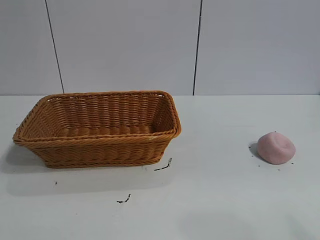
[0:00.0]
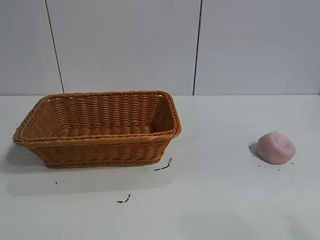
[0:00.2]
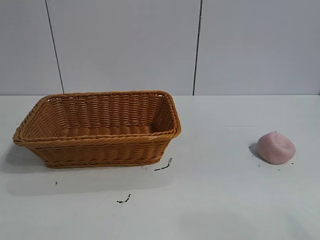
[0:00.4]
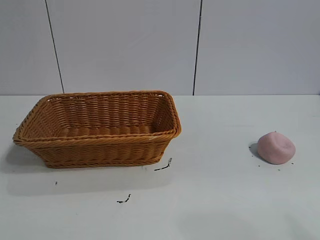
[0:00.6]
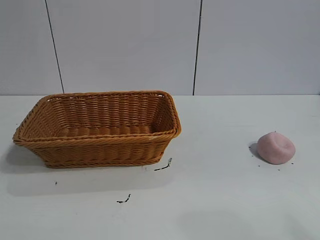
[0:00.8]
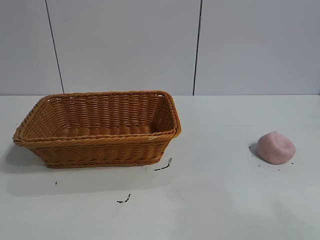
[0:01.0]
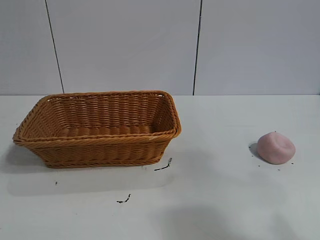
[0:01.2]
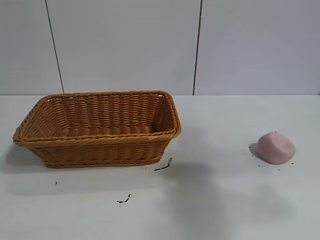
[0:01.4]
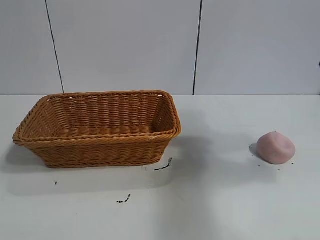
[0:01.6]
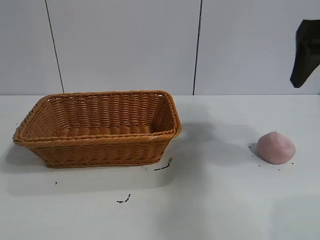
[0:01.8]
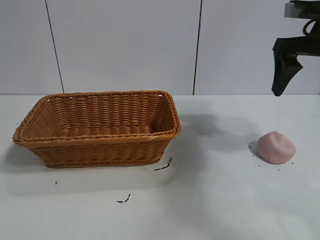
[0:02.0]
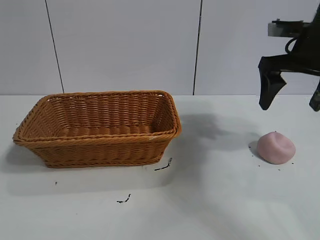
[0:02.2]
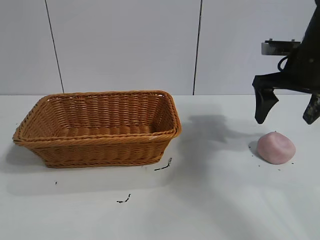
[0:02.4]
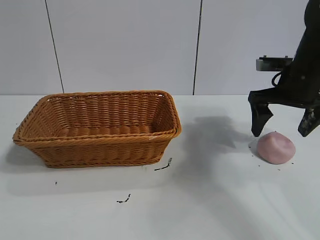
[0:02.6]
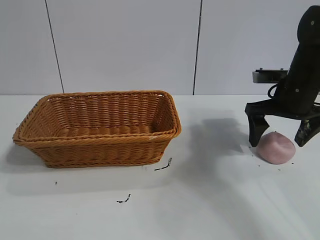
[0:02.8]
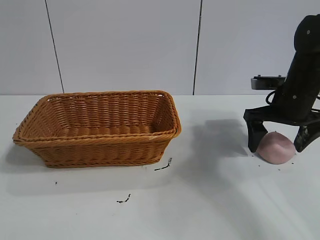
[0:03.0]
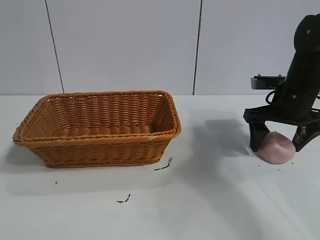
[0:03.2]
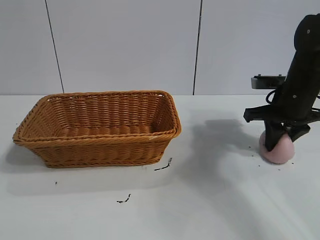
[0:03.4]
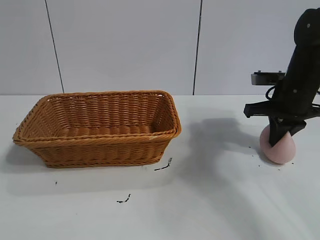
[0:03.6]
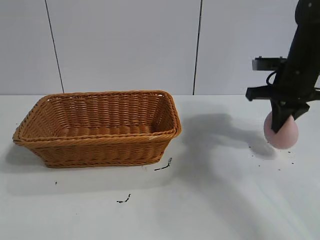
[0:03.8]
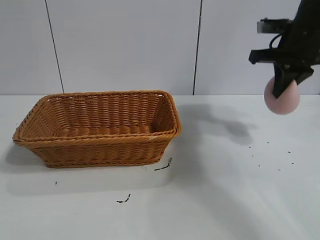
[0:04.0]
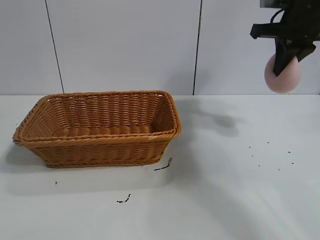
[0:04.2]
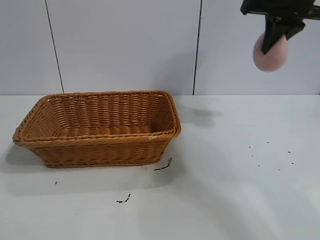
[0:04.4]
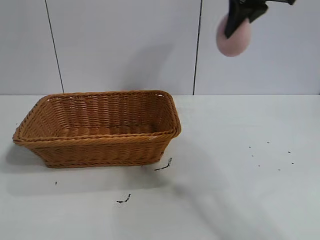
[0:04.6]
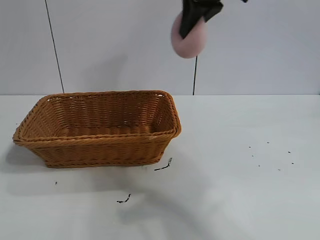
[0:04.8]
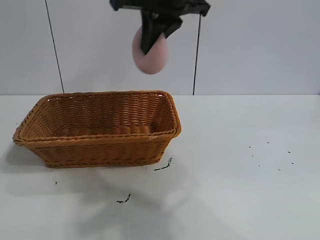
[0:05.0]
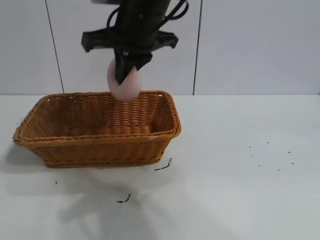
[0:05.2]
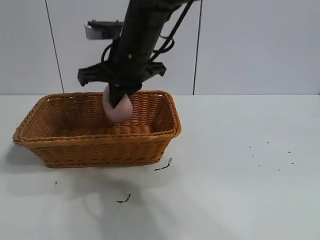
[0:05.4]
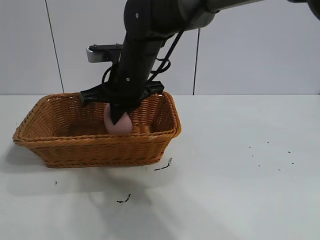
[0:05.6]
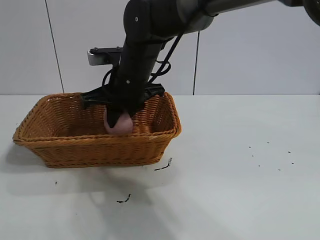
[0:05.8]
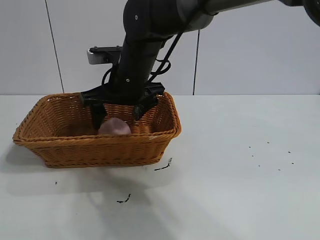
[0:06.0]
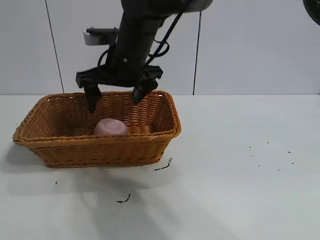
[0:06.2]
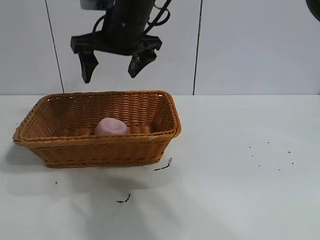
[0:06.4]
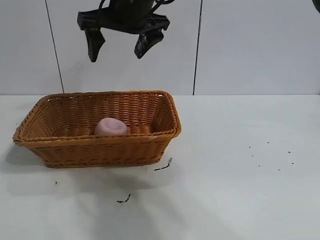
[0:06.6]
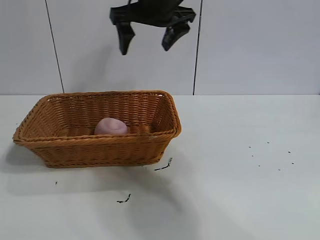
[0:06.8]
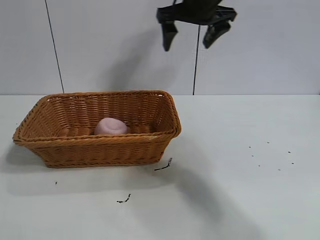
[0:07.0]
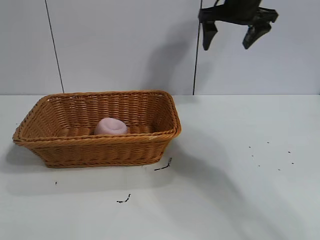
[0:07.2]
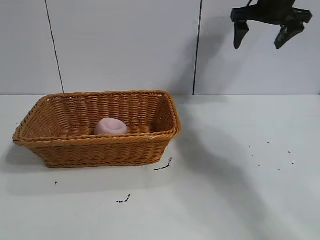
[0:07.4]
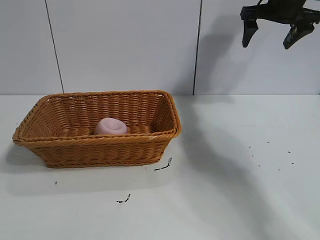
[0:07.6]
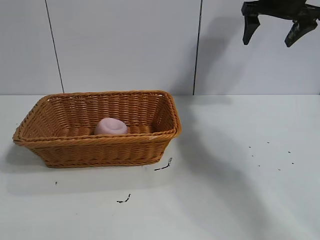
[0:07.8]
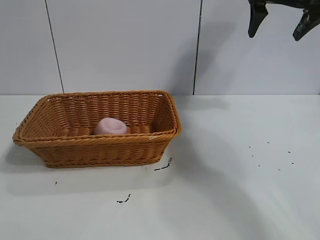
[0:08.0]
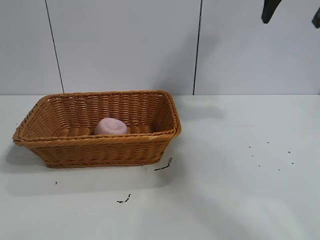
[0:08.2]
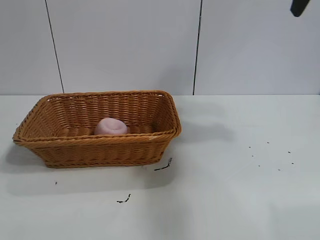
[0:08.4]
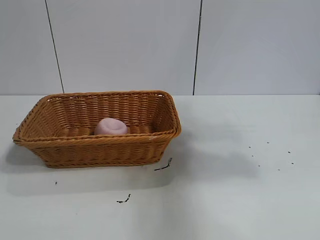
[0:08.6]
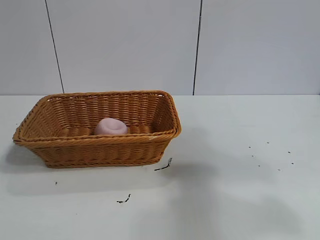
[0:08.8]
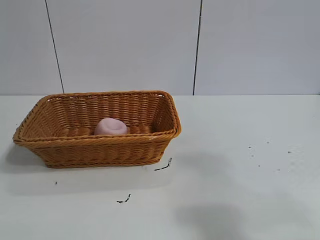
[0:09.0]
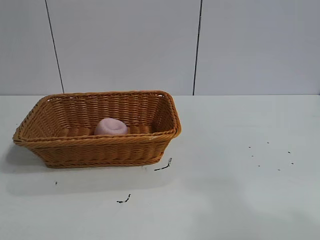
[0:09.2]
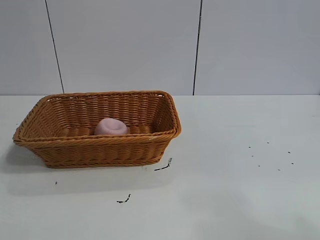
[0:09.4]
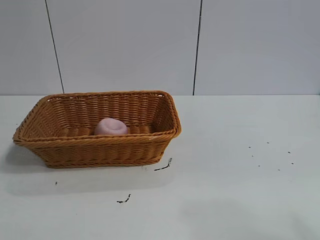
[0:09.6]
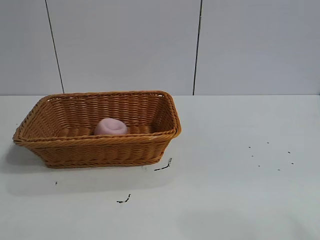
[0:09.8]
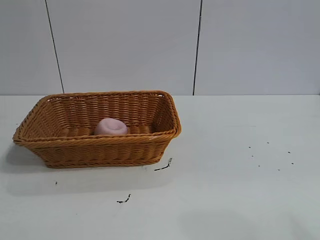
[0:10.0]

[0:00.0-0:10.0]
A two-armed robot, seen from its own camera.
Task of the whole recording: pick up the peach and put it into the basket.
Step, 0:00.8 to 0:03.4: Grasp the peach with right gripper.
Step, 0:03.8 to 0:06.0: Place the peach in the basket with right gripper.

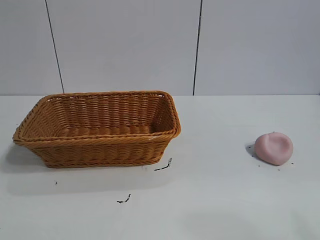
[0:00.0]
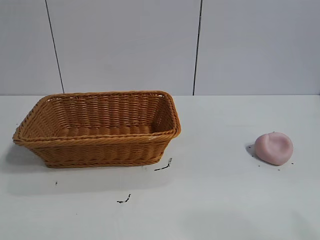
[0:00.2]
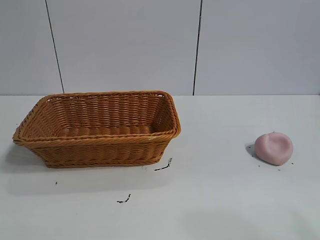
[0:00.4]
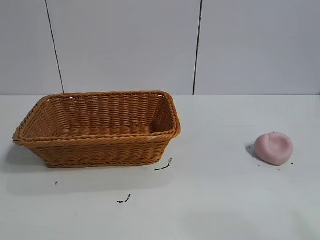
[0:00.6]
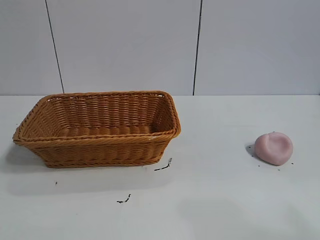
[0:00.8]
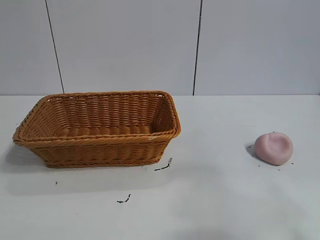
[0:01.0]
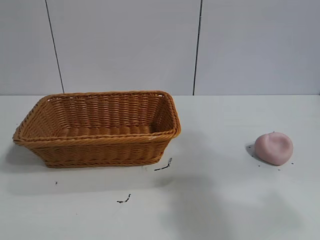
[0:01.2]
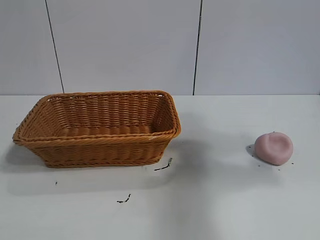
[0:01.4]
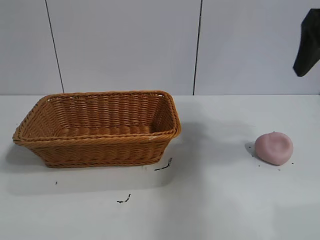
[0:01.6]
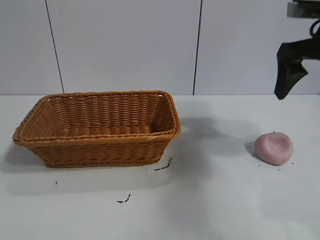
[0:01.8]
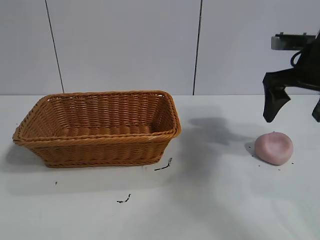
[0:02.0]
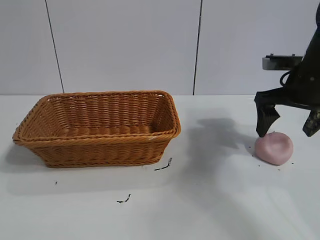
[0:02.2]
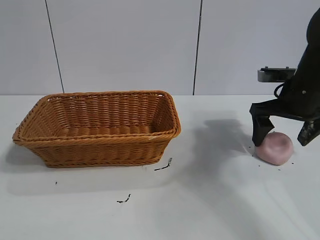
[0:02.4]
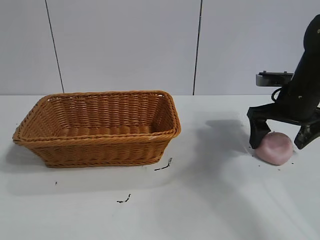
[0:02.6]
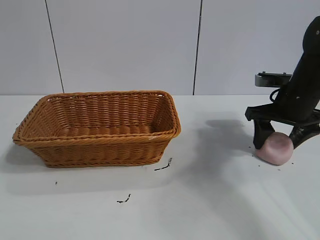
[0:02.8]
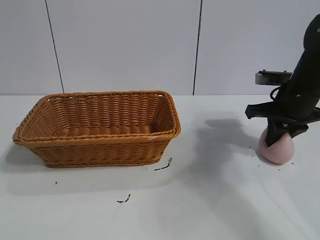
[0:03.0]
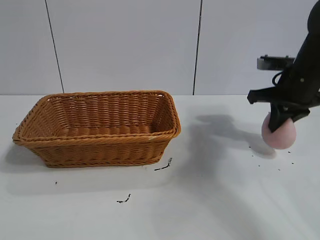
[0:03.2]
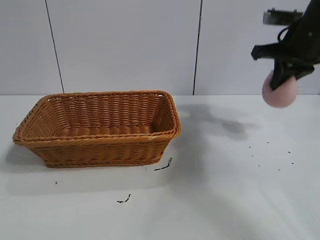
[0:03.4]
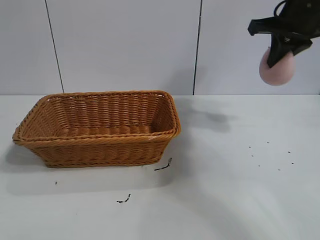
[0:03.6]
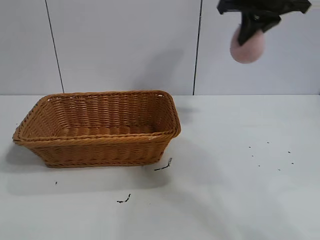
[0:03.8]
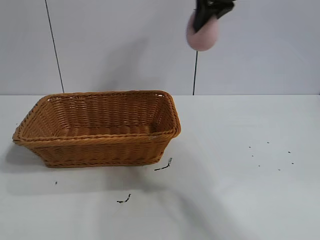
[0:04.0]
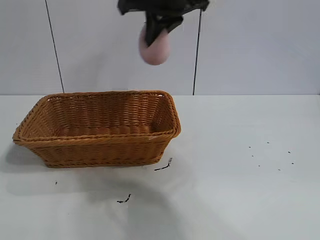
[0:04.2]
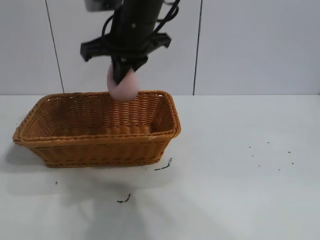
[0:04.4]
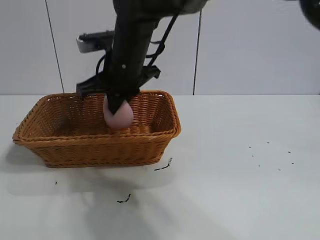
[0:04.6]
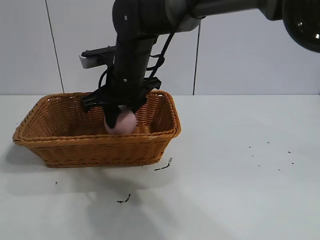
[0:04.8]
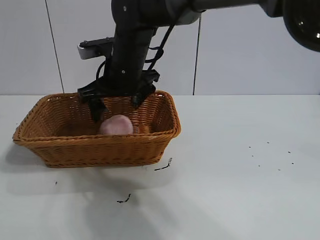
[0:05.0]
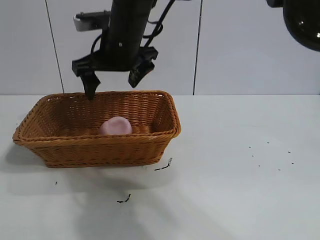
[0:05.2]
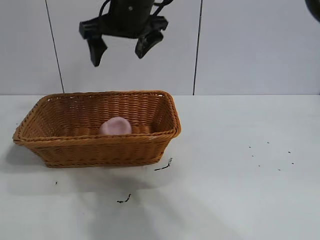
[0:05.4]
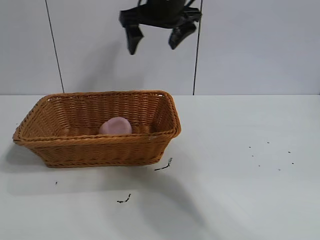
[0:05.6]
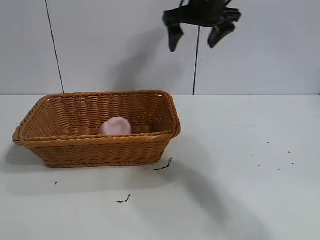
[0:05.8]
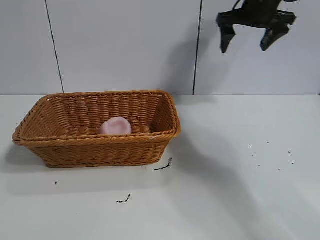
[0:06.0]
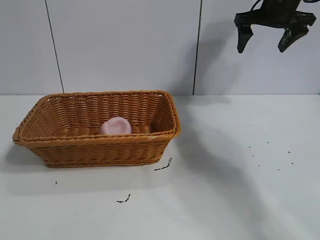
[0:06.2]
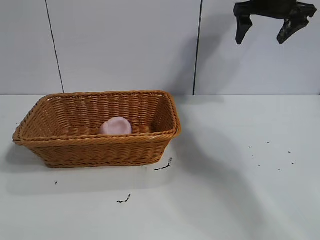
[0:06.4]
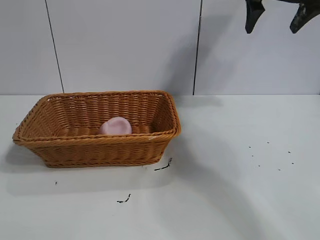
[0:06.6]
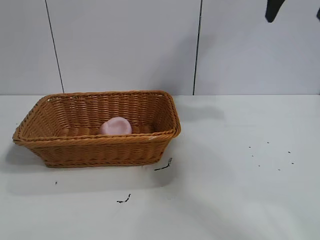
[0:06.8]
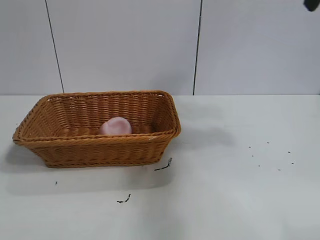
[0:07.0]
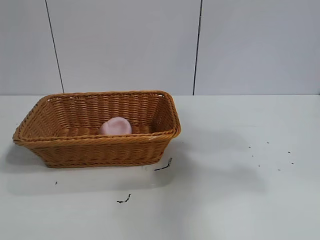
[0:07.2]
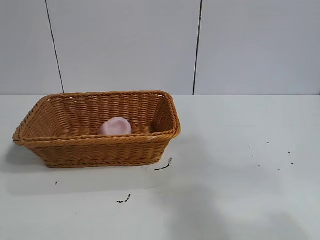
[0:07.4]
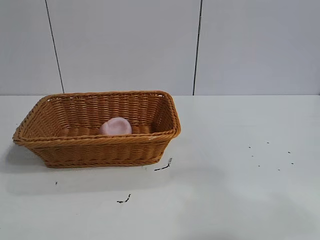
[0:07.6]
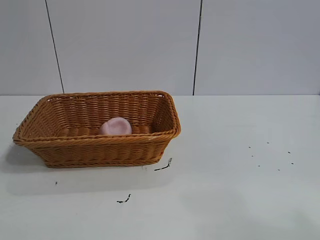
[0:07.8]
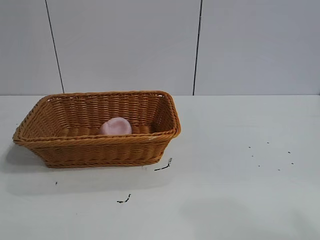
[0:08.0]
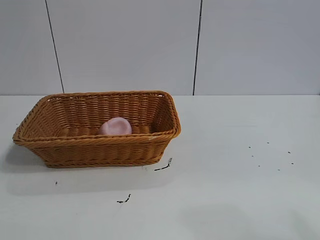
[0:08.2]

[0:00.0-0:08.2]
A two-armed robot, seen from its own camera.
Task of the whole recording: pick up the peach and put it into the basket.
Step, 0:00.8 to 0:03.0: Grasp the peach with right gripper.
Step, 0:03.2 to 0:04.8: Place the peach in the basket with right gripper.
